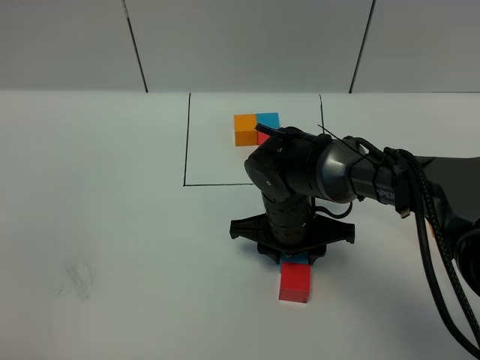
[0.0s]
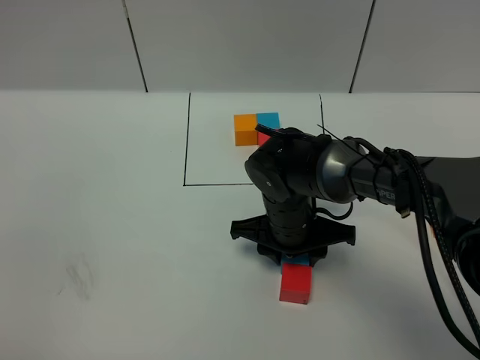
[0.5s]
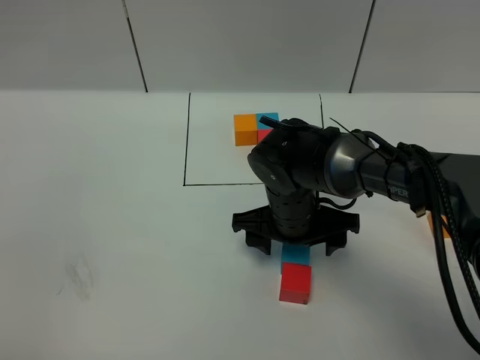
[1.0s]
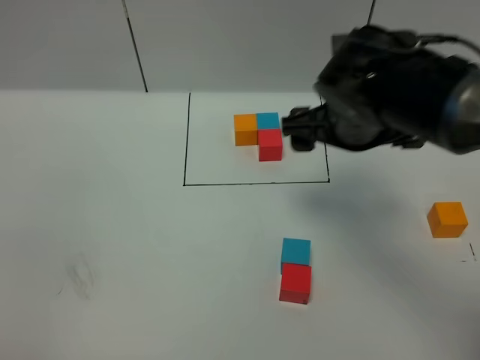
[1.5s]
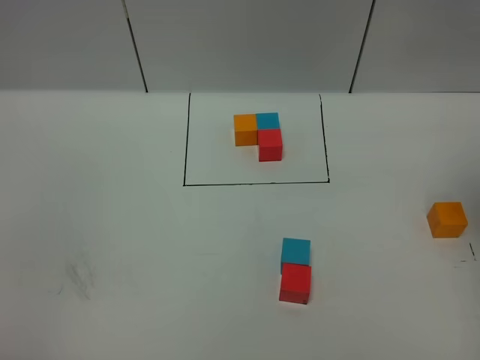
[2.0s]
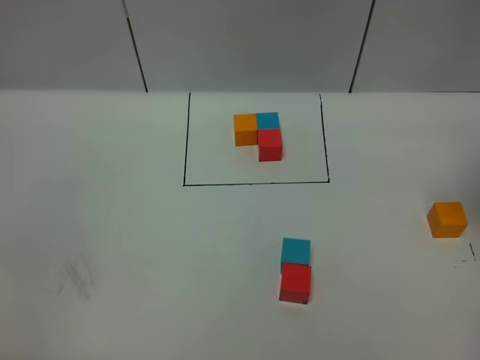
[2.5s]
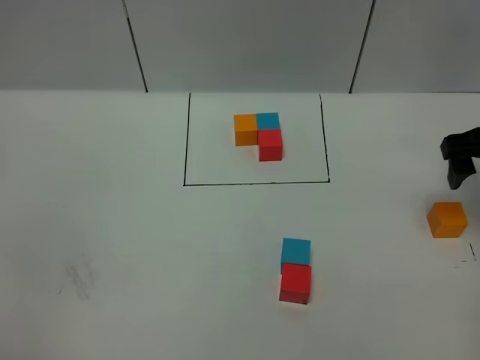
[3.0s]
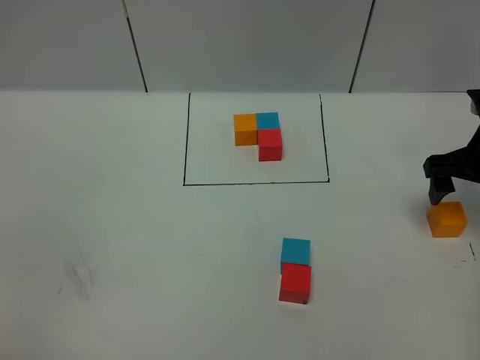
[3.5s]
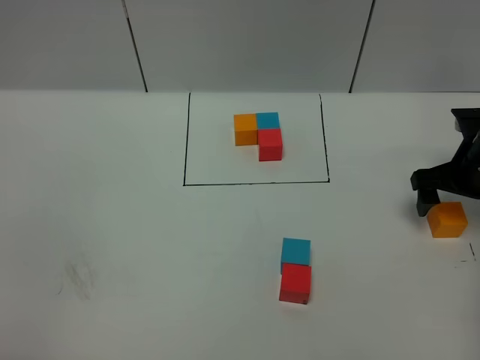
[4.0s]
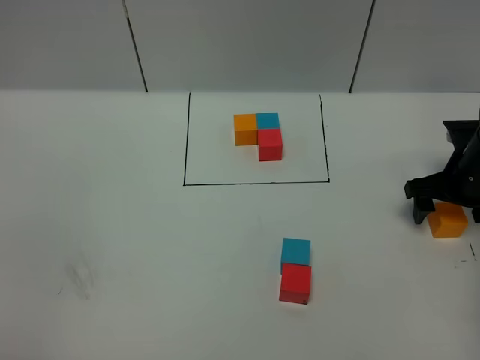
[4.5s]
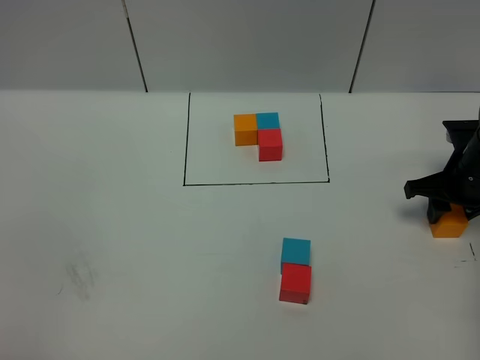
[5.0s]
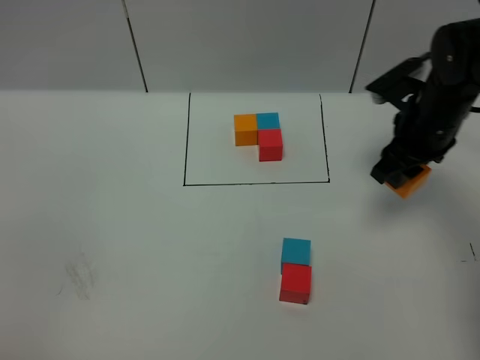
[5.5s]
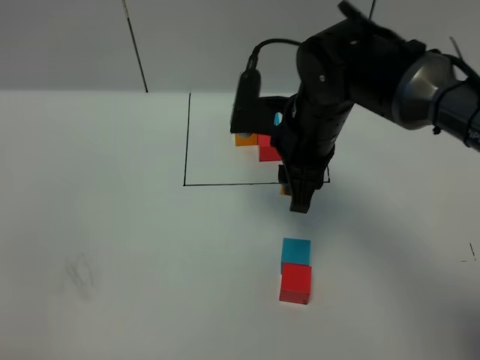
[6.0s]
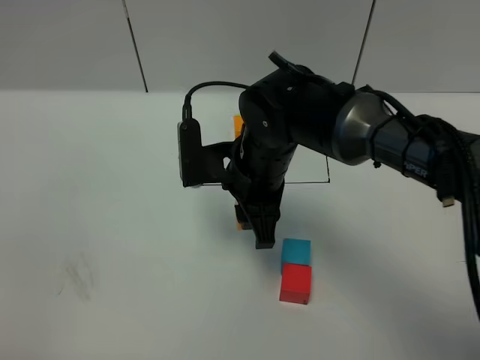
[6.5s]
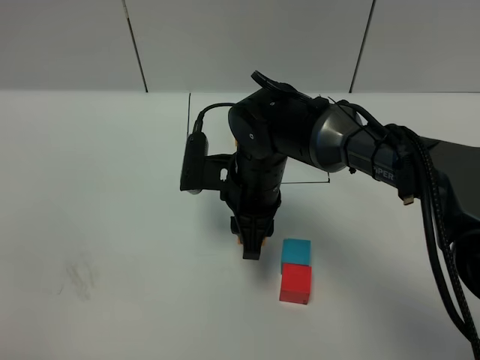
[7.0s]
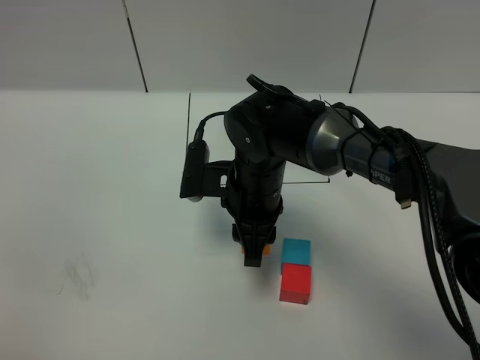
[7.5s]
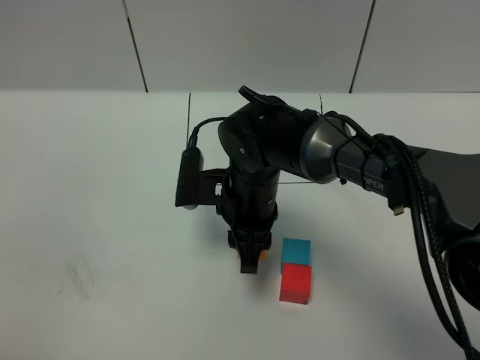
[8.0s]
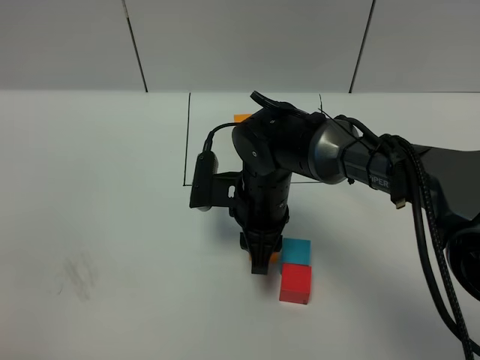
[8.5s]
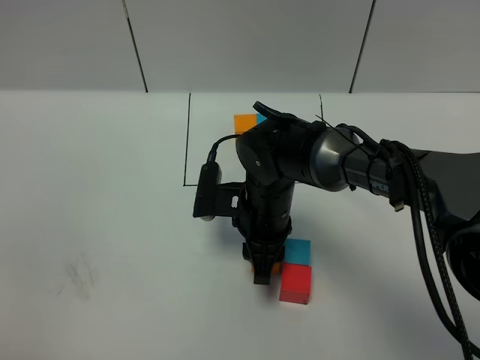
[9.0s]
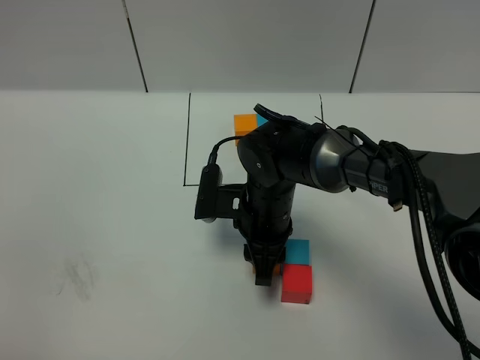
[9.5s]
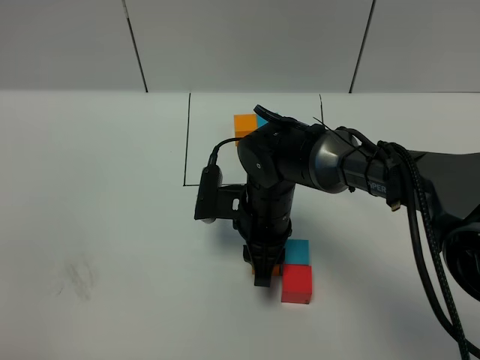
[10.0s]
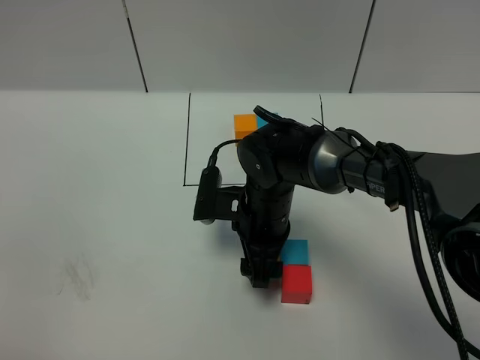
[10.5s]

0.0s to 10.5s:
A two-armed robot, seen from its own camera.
Task of the whole recording: According to the building block template in front, assemble the scattered blocks together.
0.0s to 2.0s: The right gripper shifts roughly 35 cm upward and to the right, and opens.
2.0s to 4.0s: The right gripper travels downward by approximately 25 cm.
4.0s to 6.5s: The right gripper goes about 30 cm to the left, and closes its fingers.
6.5s to 8.5s: The grippers make only small movements.
8.5s to 10.5s: The right gripper opens.

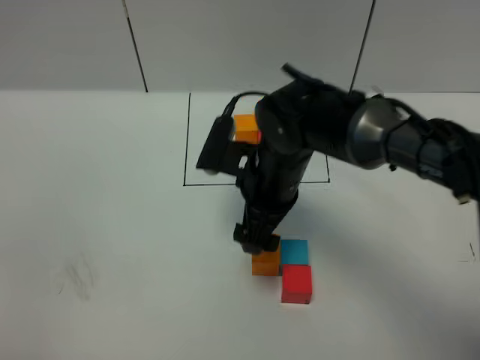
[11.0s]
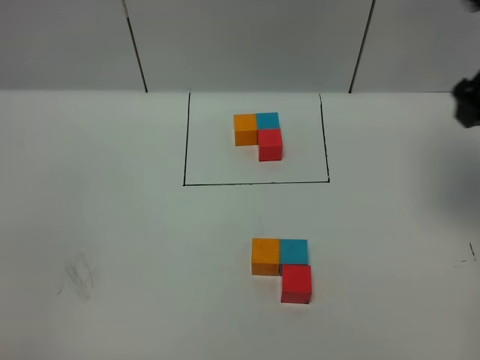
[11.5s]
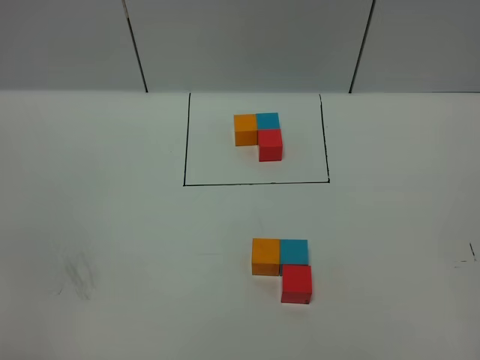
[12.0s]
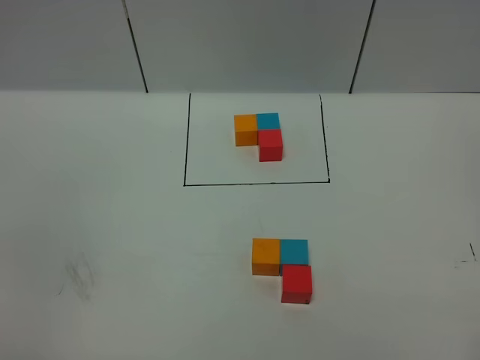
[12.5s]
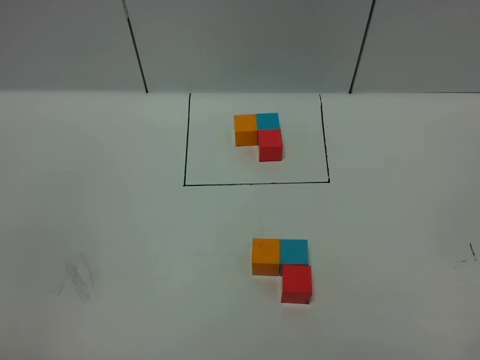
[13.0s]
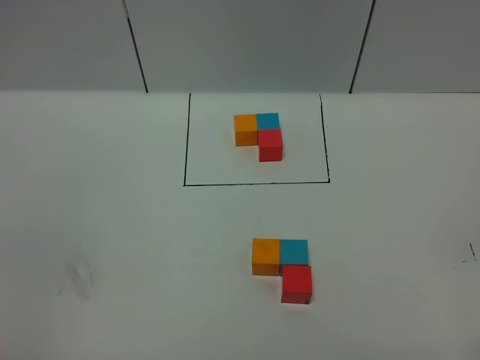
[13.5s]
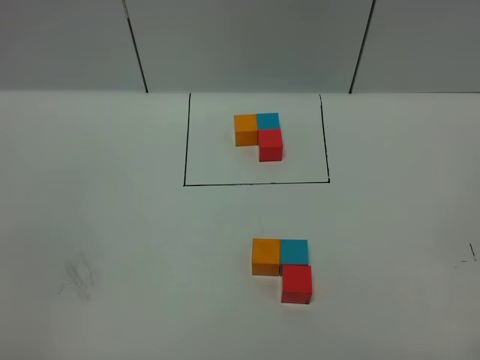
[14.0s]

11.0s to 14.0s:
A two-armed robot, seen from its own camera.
Task of the whole recording: According to the building block template in front, assemble the scattered blocks together.
11.0s to 12.5s: The right gripper moves backward, to the right and upward, about 40 cm.
